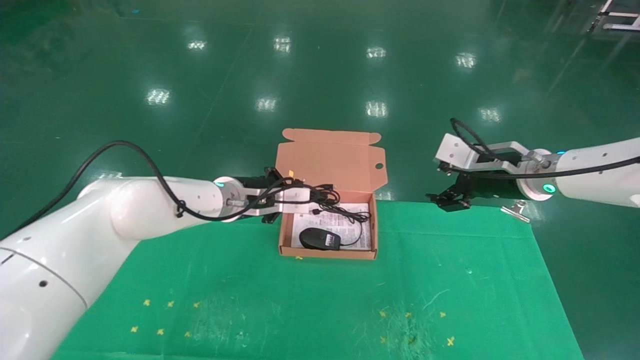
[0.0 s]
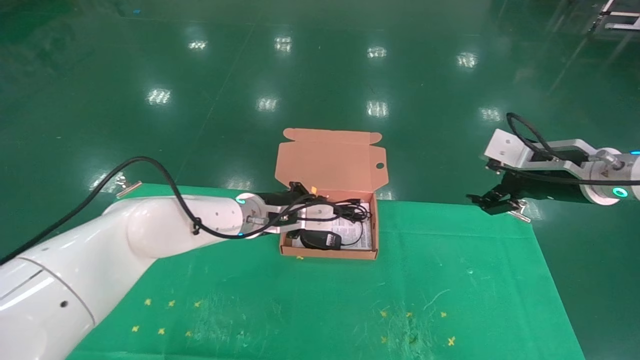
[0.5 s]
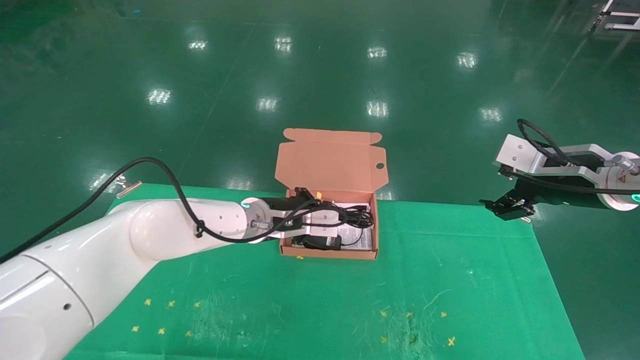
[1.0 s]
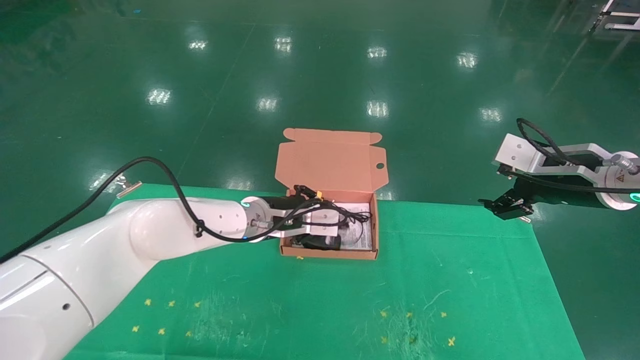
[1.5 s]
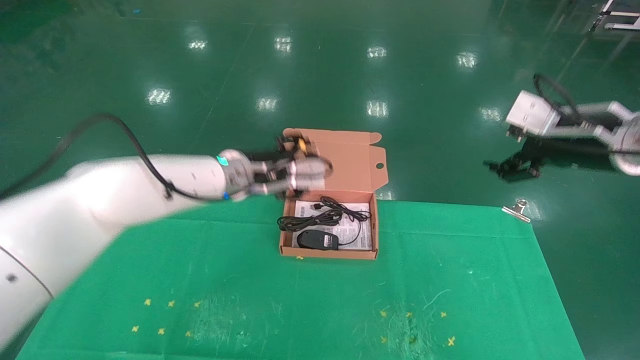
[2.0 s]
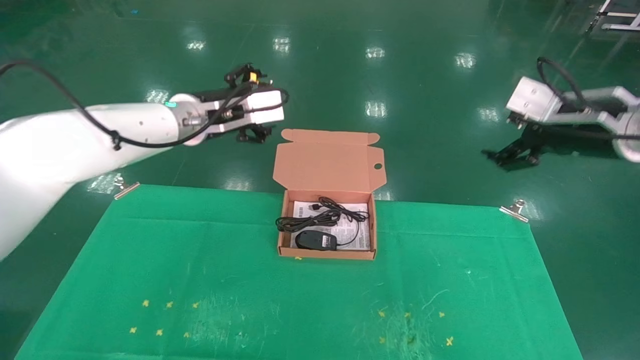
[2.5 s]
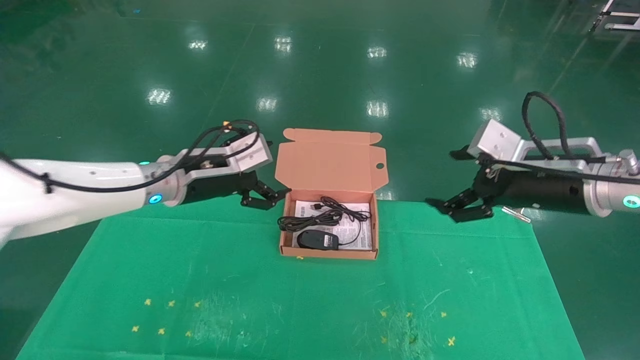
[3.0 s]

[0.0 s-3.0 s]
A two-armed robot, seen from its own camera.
Task of the whole recording: grasp data cable left put into box grasp mouse right put into box.
0.0 to 1.5 s: The right gripper is displaced to the right by about 5 cm.
1.5 to 3.0 s: The left gripper goes roughly 15 cm to the left and upward, and opens its fingers. Meanwhile the right gripper moves to the left, some 5 cm.

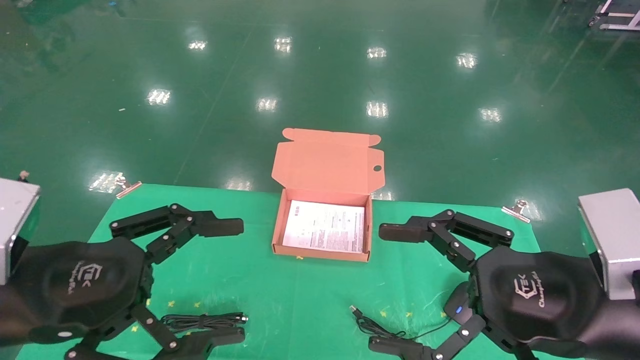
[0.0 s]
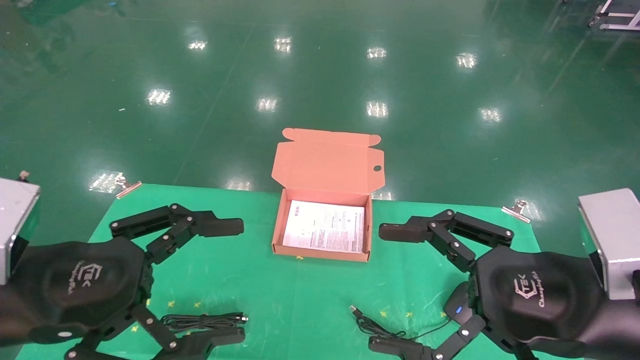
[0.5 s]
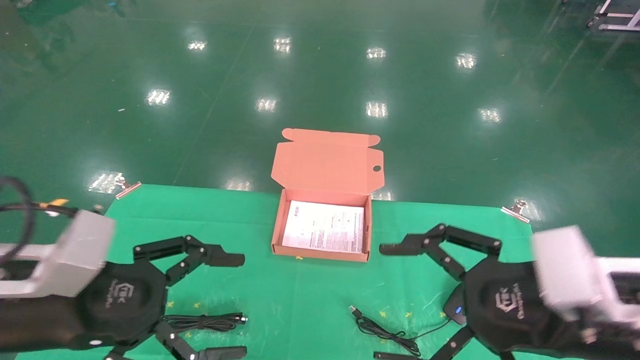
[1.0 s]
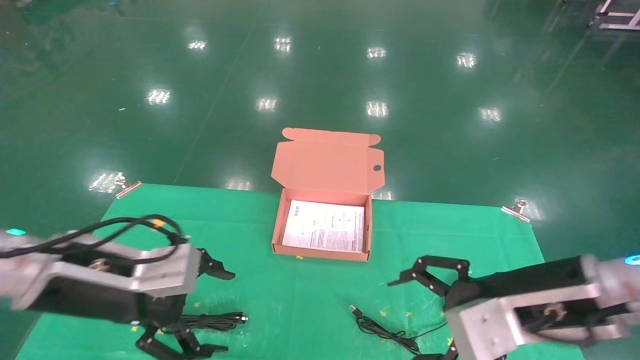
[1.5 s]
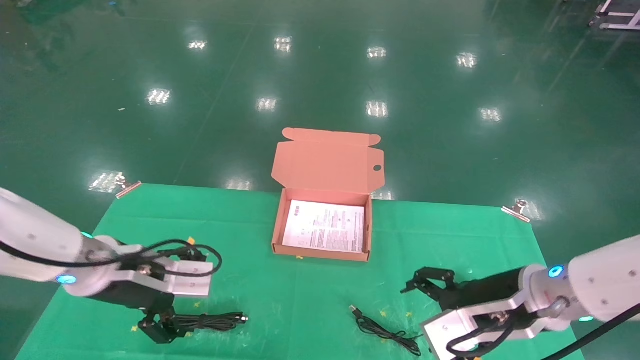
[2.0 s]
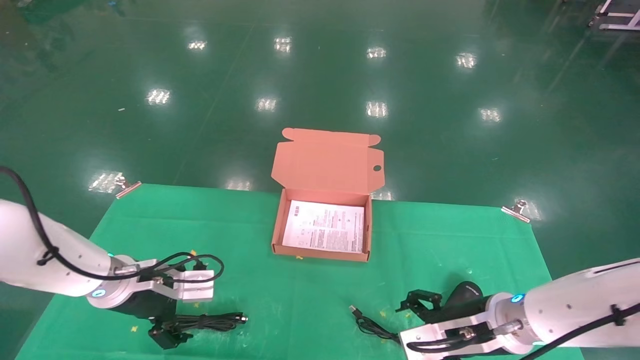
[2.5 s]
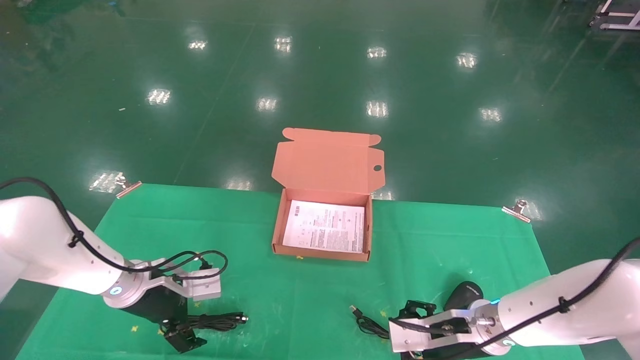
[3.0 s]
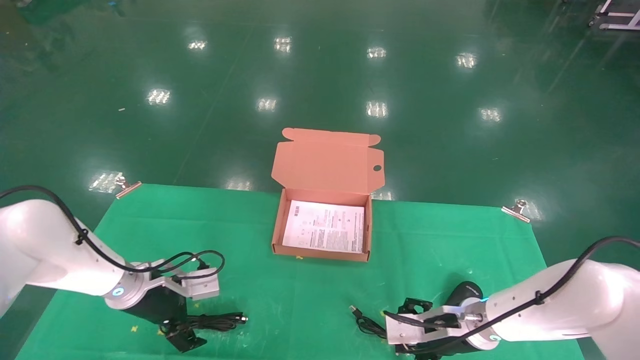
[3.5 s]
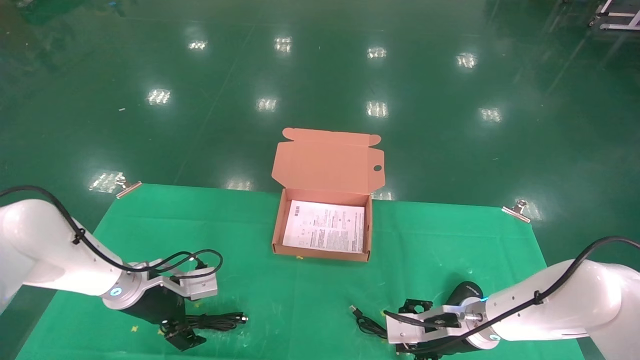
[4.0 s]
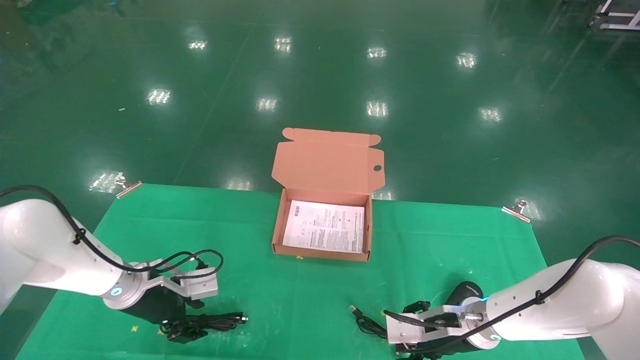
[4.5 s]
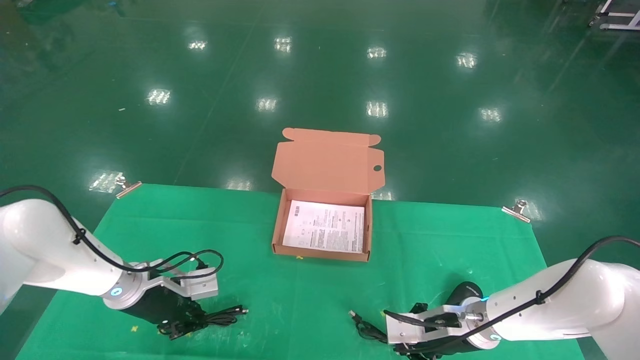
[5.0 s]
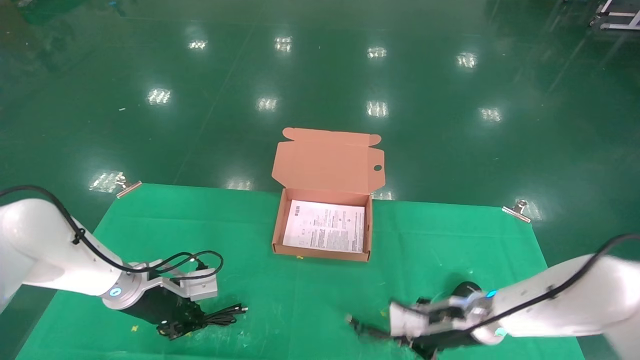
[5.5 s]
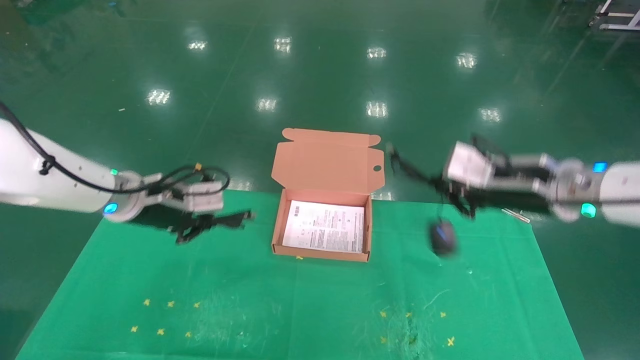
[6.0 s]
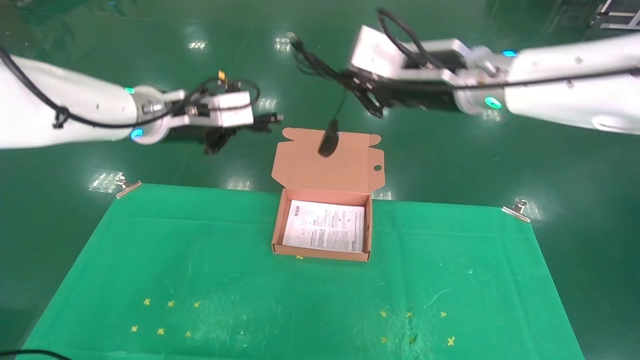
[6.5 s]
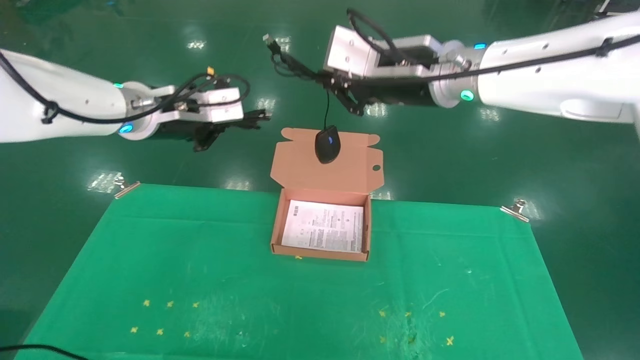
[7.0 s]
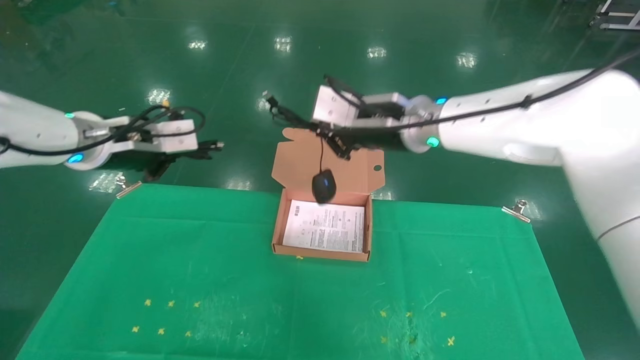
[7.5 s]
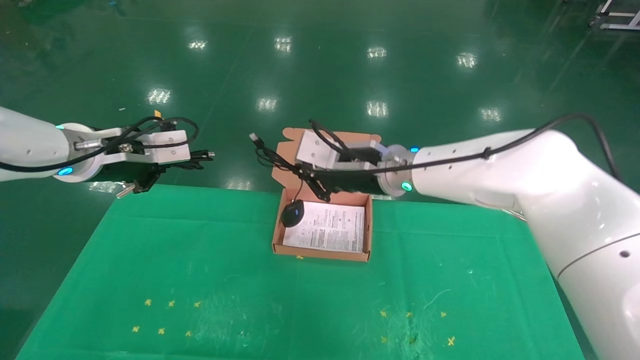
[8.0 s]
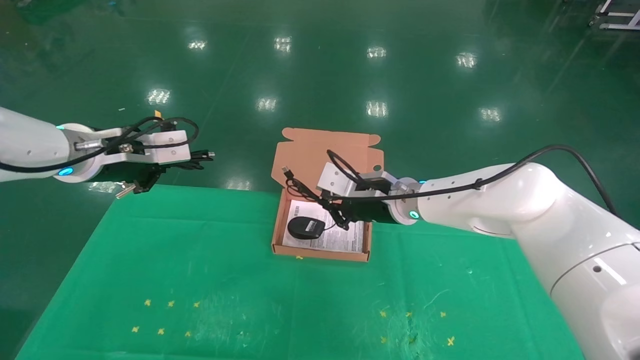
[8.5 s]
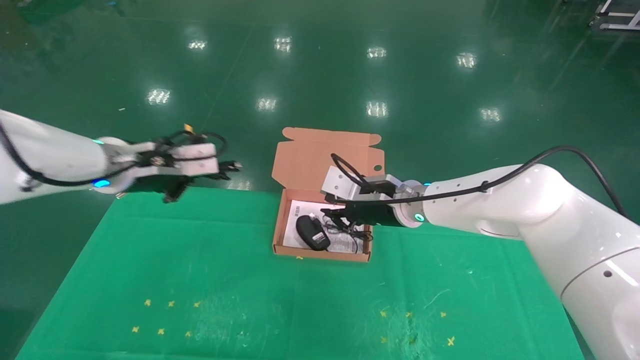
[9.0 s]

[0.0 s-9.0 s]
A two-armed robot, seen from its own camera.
Task of the whole recording: grasp data cable left put into box grasp mouse right put into box.
Step, 1.0 to 5.5 s: Grab and pick up both the mouse and power cord from the accessory packaging area at the same time.
0.0 to 2.0 s: Both grippers move forward and downward, roughly 15 cm.
2.0 to 4.5 s: Both grippers move downward and forward, approximately 15 cm. The left gripper closes; the right gripper closes.
4.5 to 7.0 s: Both grippers travel together upward, about 30 cm. The left gripper closes up; the right gripper closes.
7.0 to 9.0 s: The right gripper shifts some 20 cm downward; the left gripper goes approximately 5 cm downward.

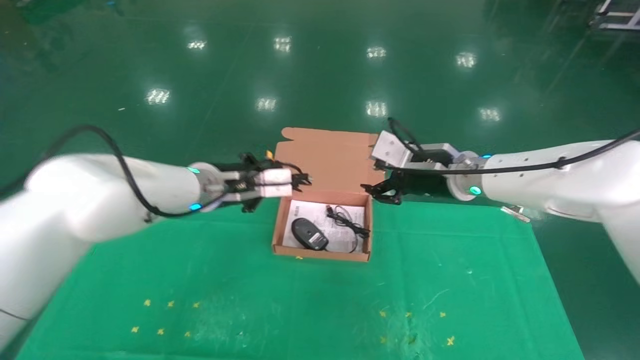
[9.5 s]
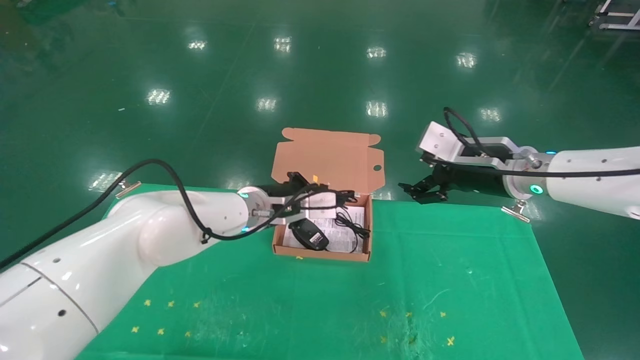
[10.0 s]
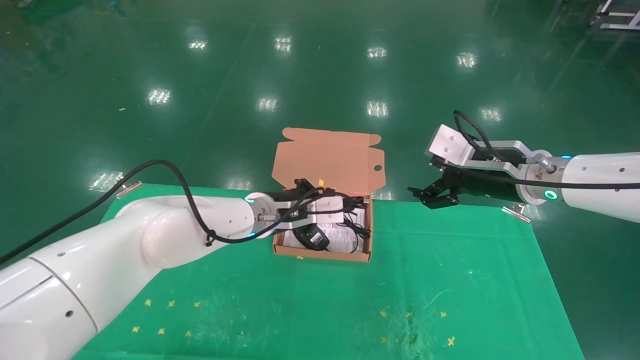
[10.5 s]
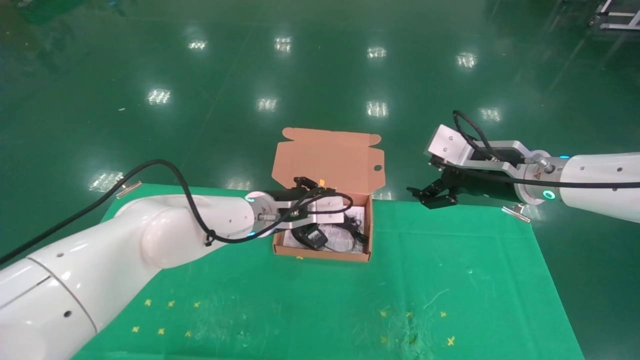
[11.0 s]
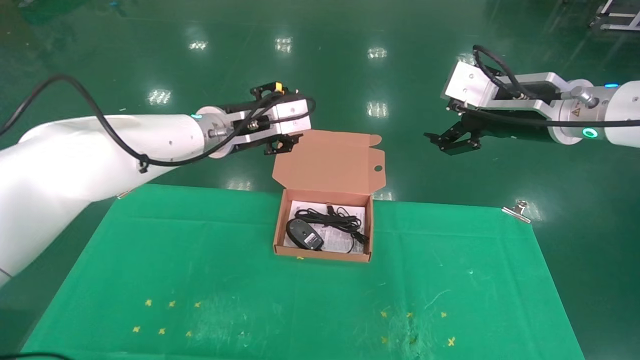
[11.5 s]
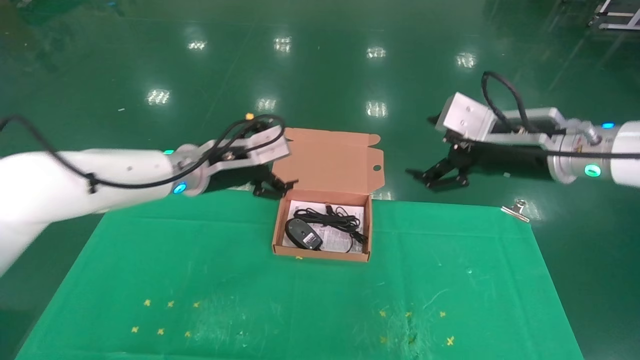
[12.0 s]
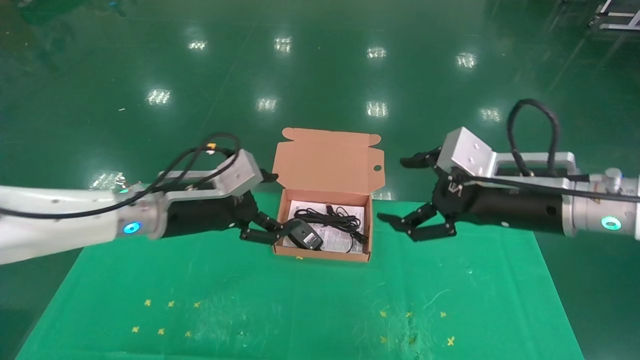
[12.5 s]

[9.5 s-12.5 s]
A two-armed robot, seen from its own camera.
Task of the whole recording: grasp data cable left put into box grasp mouse right put into box.
9.5 to 11.0 s: Both grippers move to the right, some 5 cm. The right gripper opens up.
11.0 to 12.5 s: The right gripper is displaced backward by approximately 10 cm; the left gripper goes some 15 cm to the left and backward, and opens up.

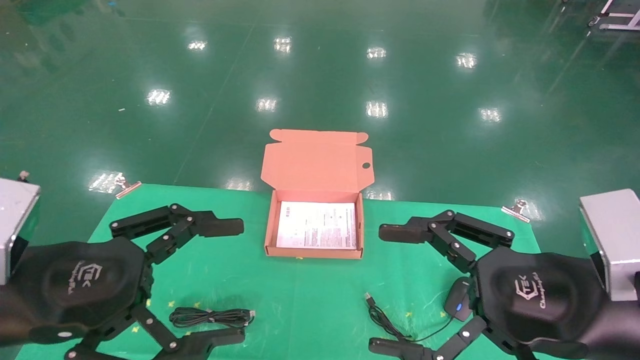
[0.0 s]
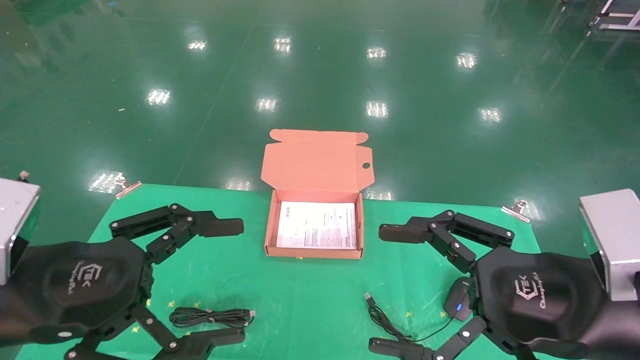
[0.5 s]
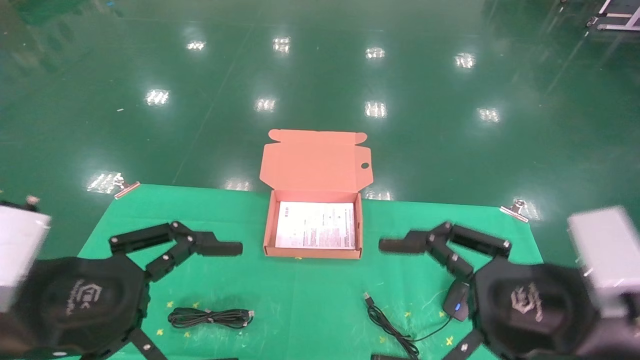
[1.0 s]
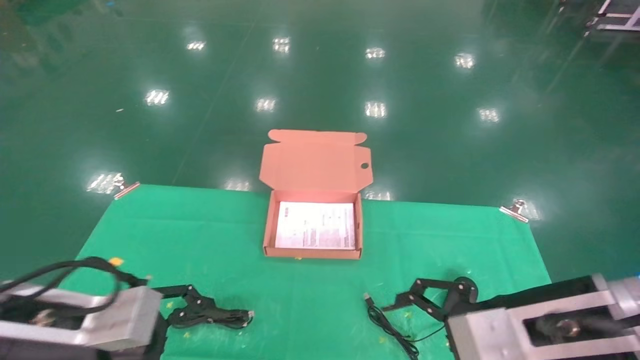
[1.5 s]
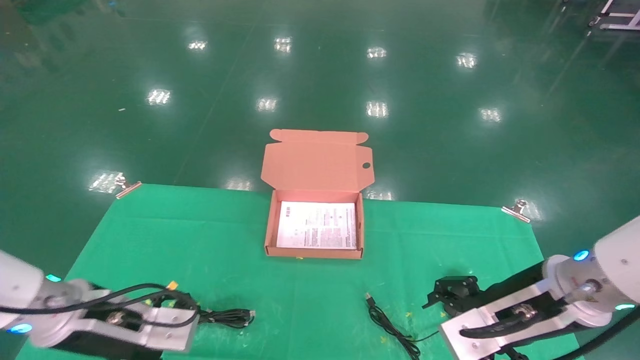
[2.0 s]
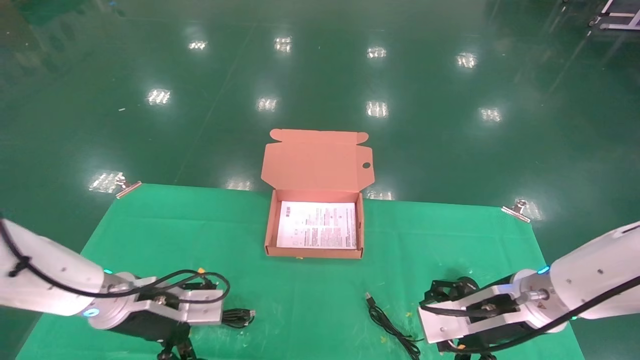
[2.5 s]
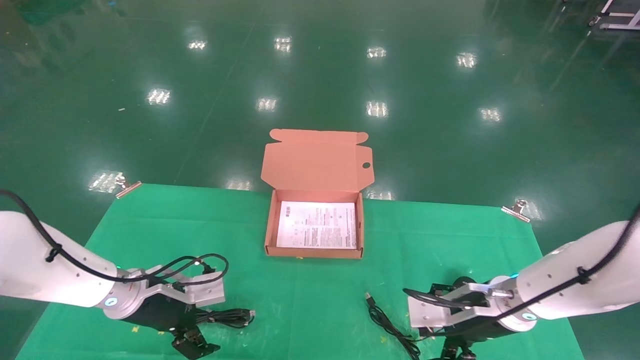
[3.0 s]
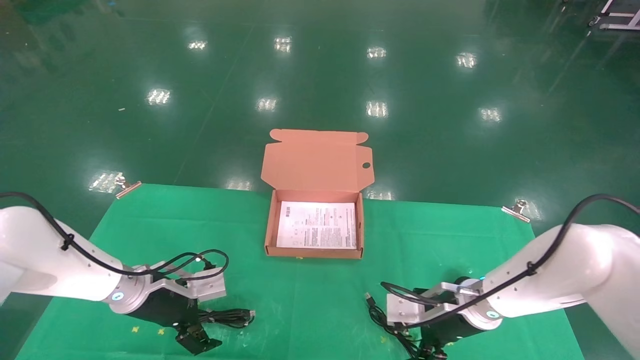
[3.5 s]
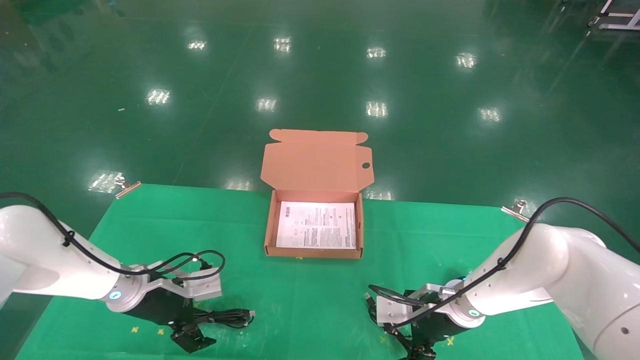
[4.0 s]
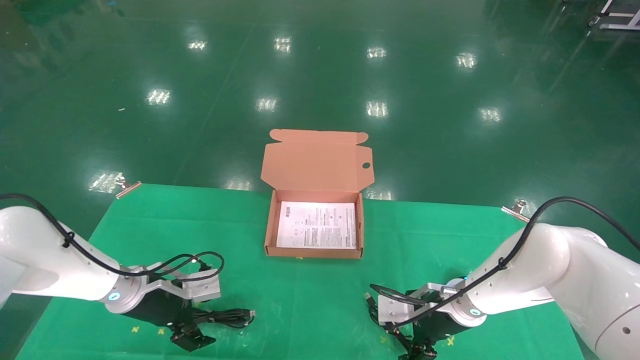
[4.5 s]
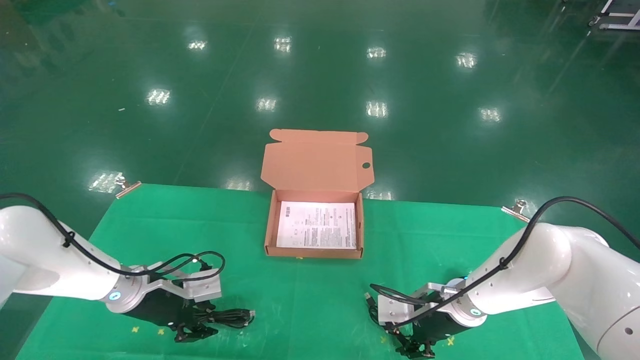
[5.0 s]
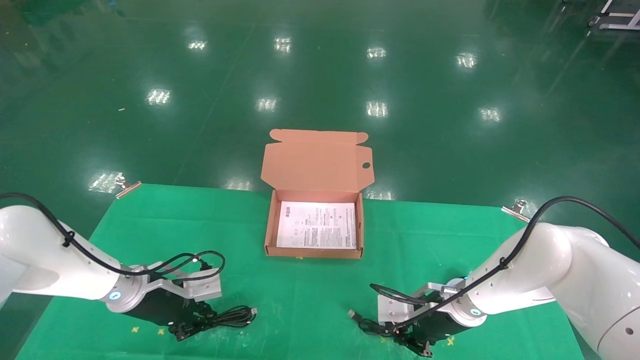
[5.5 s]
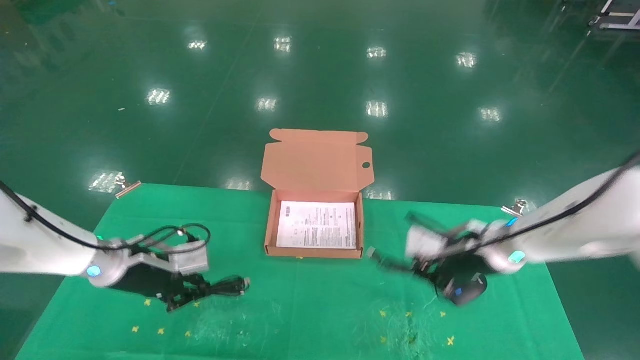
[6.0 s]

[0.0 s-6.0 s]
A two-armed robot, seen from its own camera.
Task of the whole recording: grasp data cable left put into box grasp mouse right put into box.
Step, 2.0 to 5.5 s: Grab and pick up both the mouse and power cord from the accessory packaging area at the same time.
0.0 to 2.0 s: The two grippers go some 15 cm forward and downward.
2.0 to 4.0 s: Both grippers move forward and downward, some 15 cm.
4.0 to 6.0 s: The left gripper travels upward by approximately 5 cm, and closes its fingers. The right gripper shifts some 15 cm upward, and closes.
